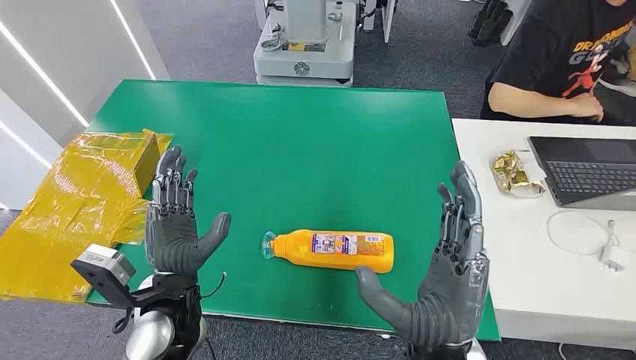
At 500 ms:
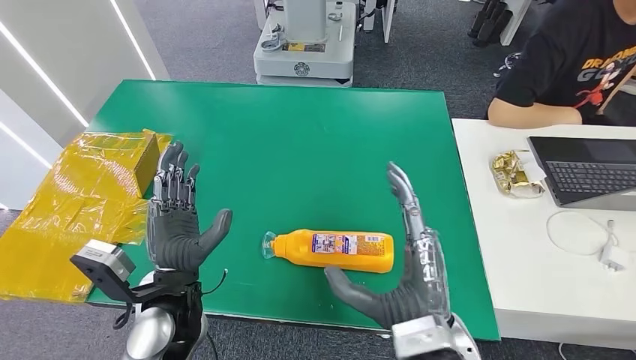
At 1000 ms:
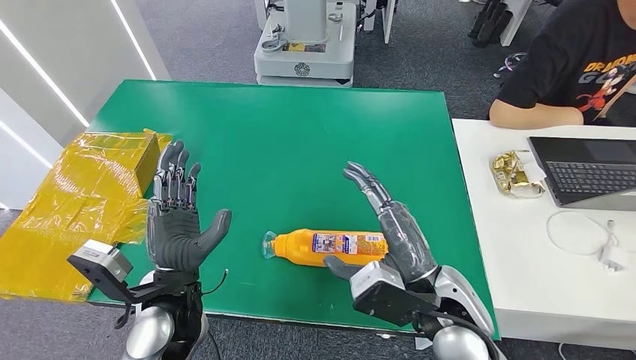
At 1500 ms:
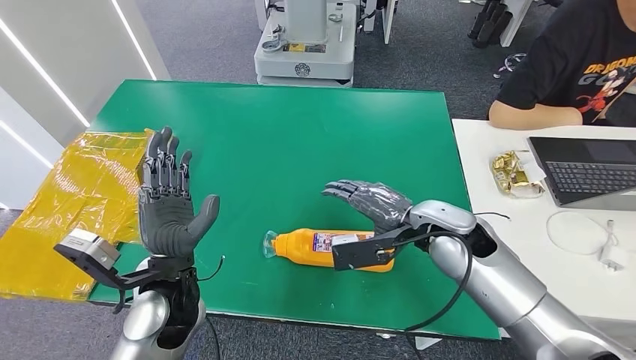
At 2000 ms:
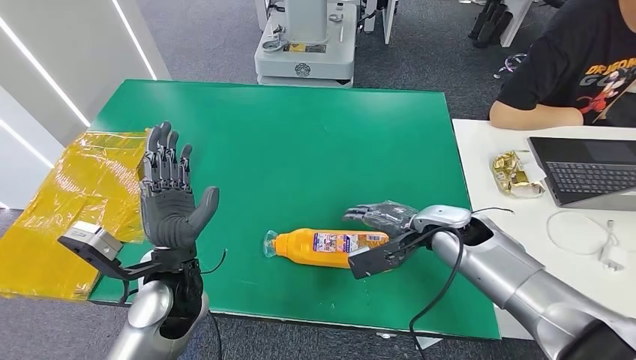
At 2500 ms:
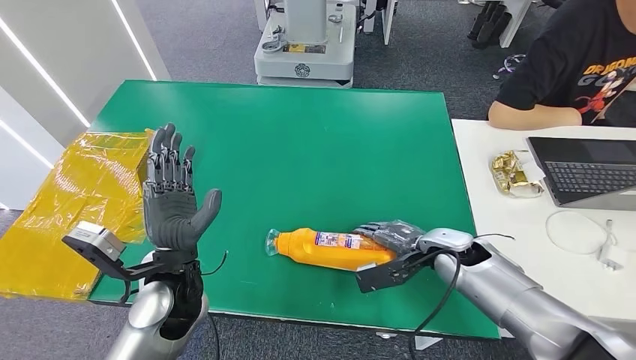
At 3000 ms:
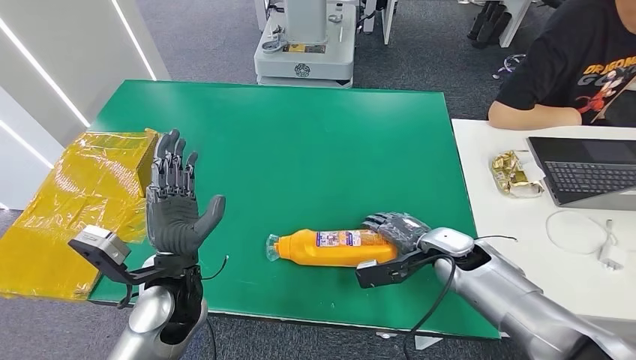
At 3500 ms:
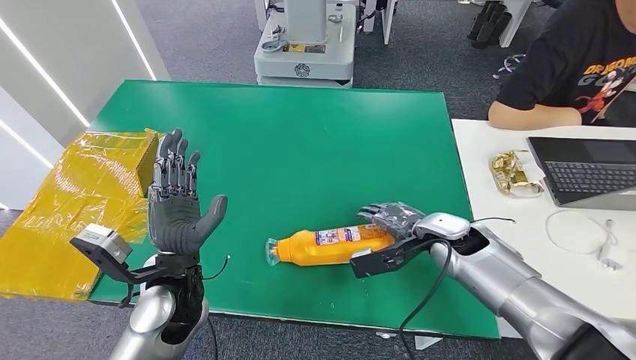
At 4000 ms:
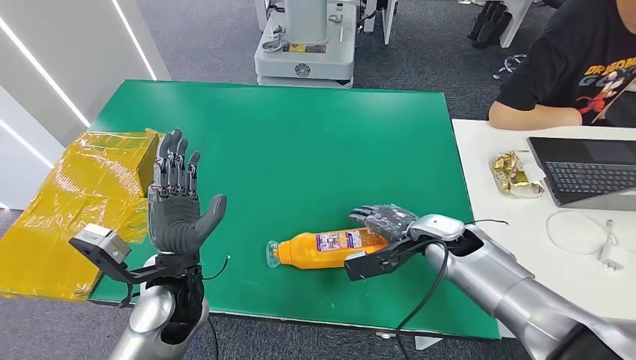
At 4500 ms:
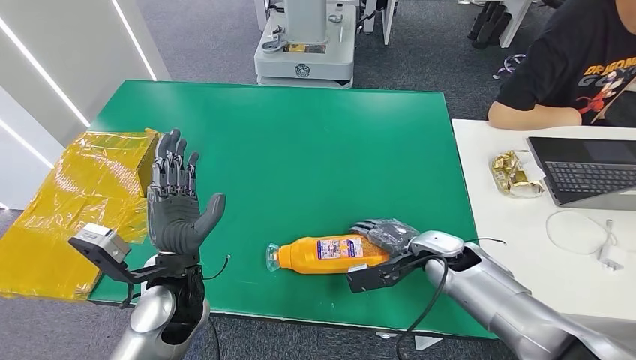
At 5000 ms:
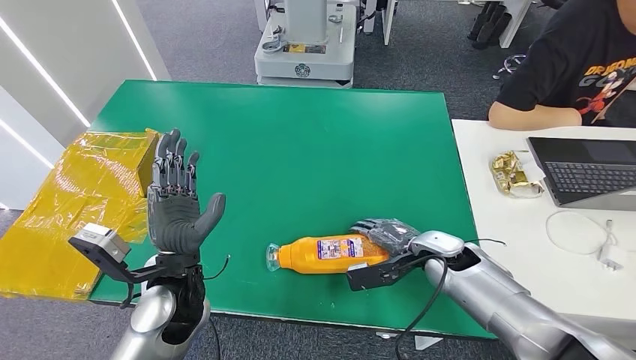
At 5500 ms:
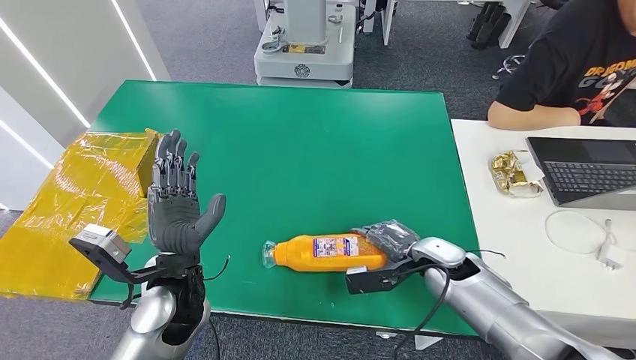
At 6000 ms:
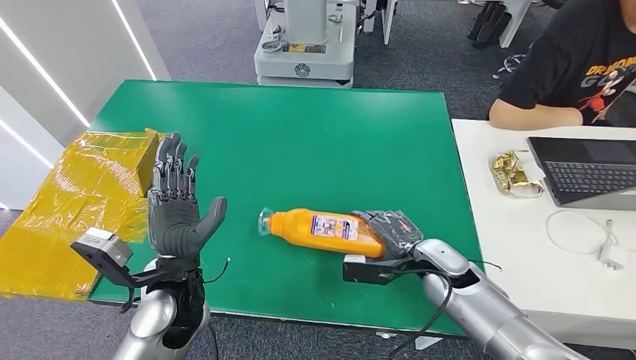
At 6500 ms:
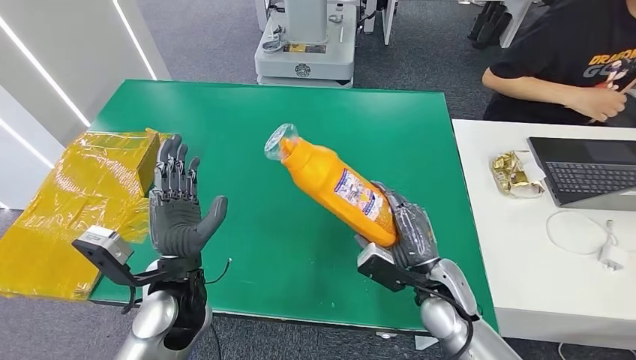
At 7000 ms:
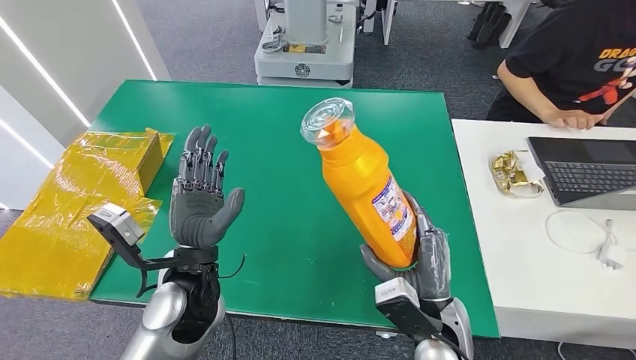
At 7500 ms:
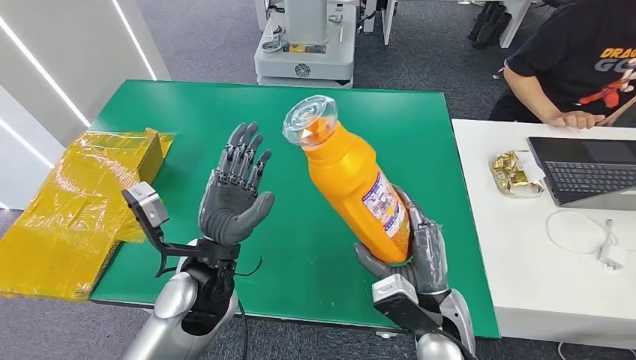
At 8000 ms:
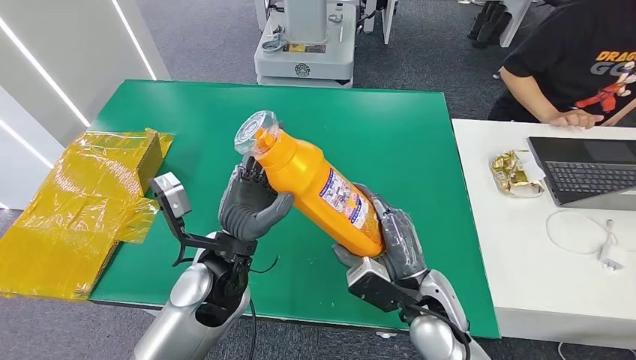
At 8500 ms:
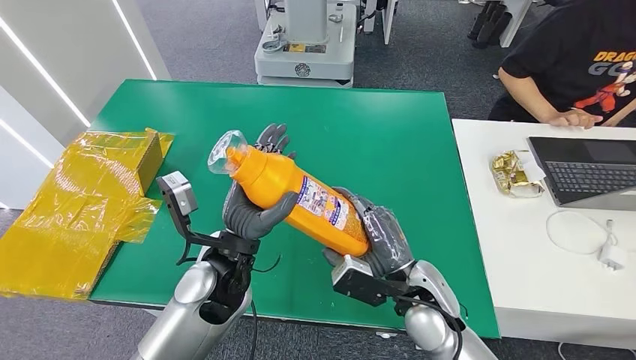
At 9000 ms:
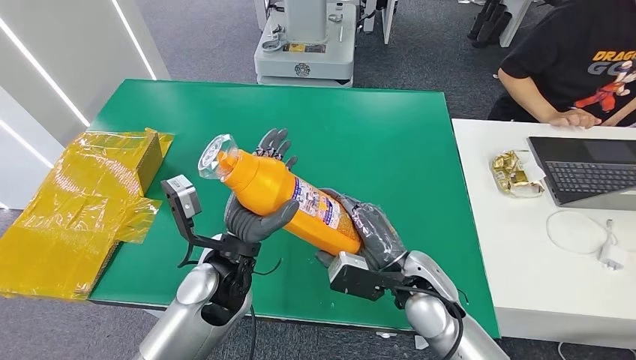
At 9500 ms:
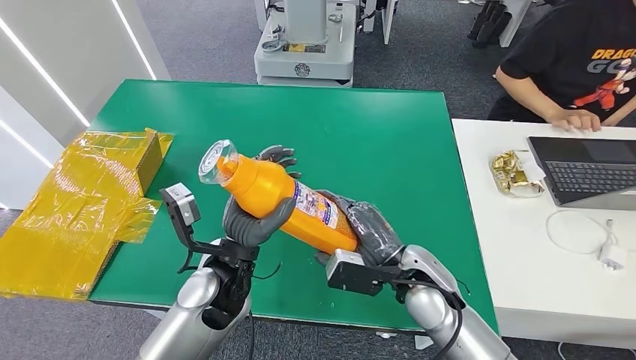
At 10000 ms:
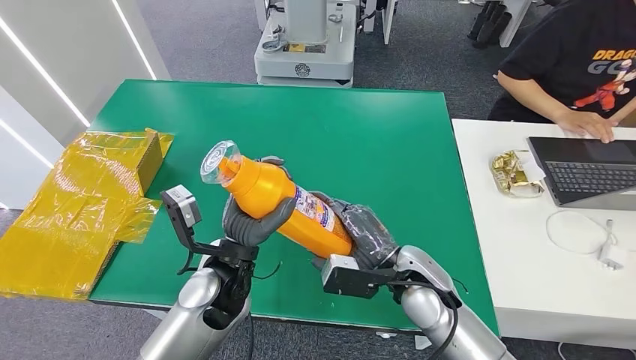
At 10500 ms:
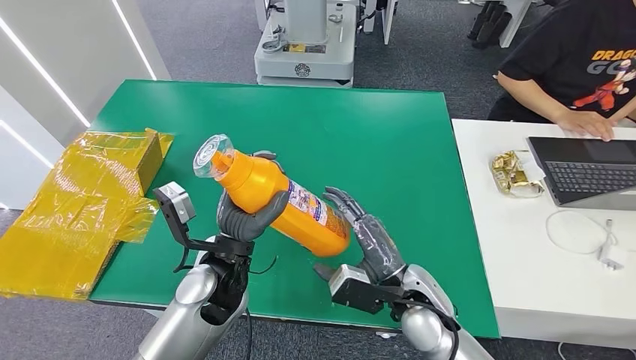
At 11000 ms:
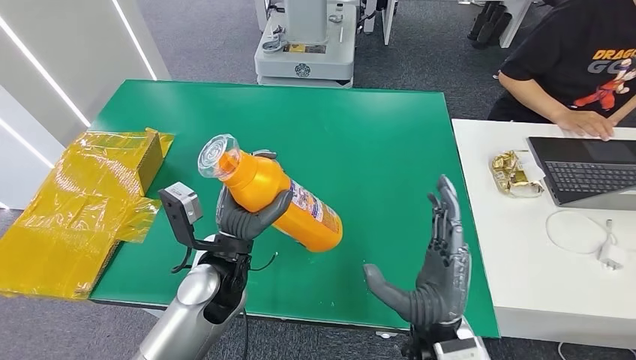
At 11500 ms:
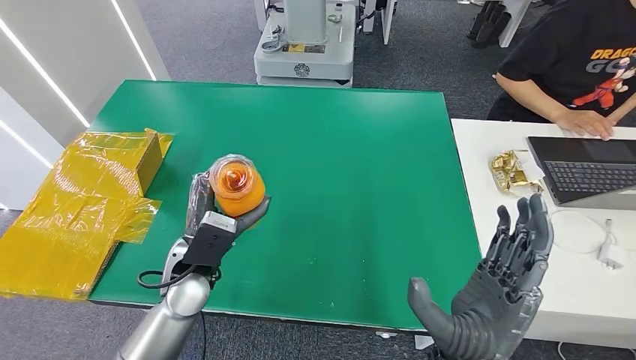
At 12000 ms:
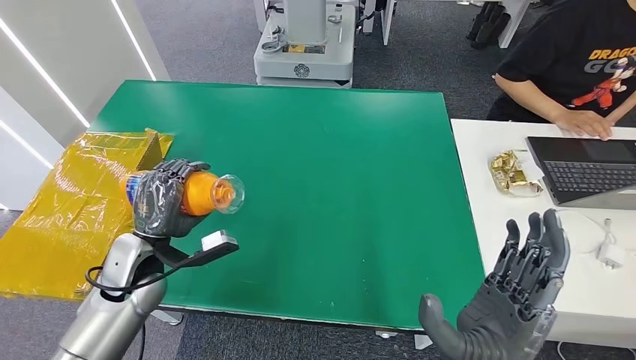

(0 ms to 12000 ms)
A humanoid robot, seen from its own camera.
Step, 0 ms - 7000 ms: Pick up the bottle from the table.
4000 ms - 6000 ms: The right hand travels downward by some 5 cm.

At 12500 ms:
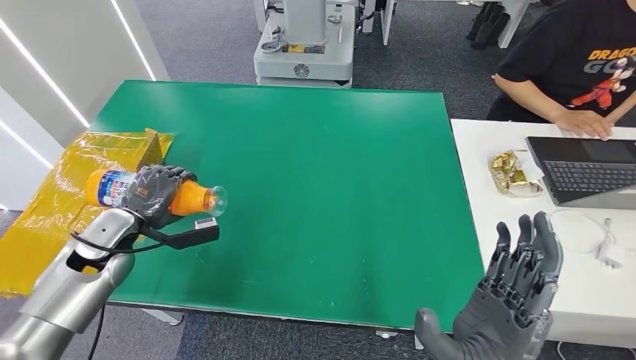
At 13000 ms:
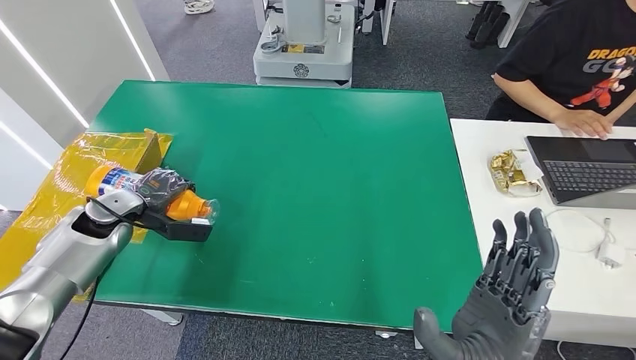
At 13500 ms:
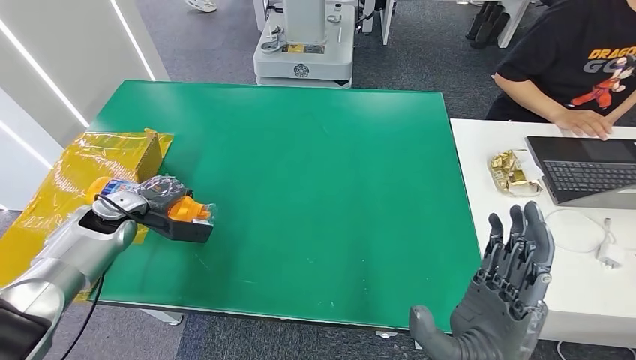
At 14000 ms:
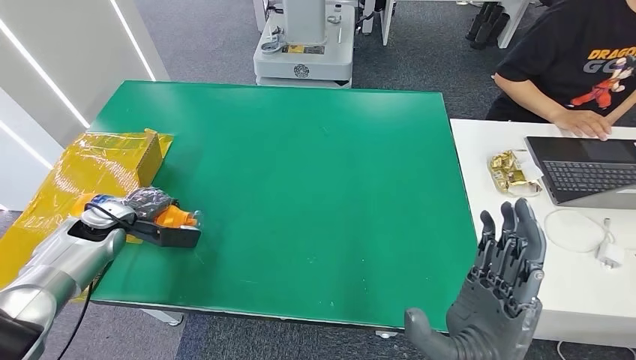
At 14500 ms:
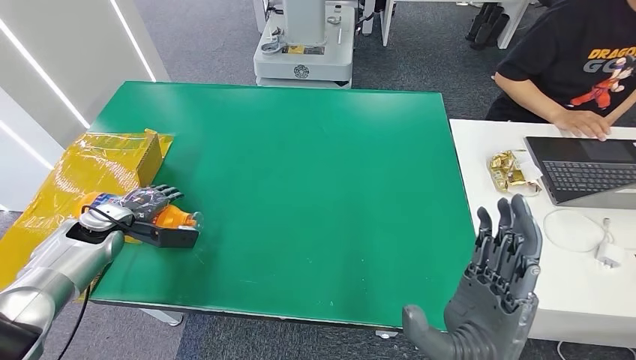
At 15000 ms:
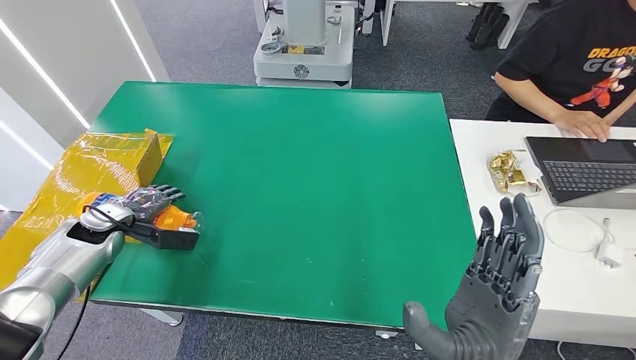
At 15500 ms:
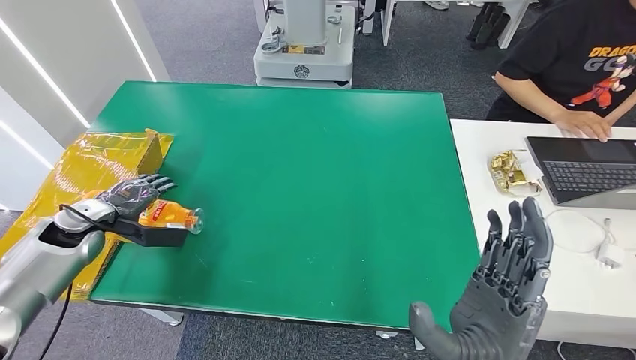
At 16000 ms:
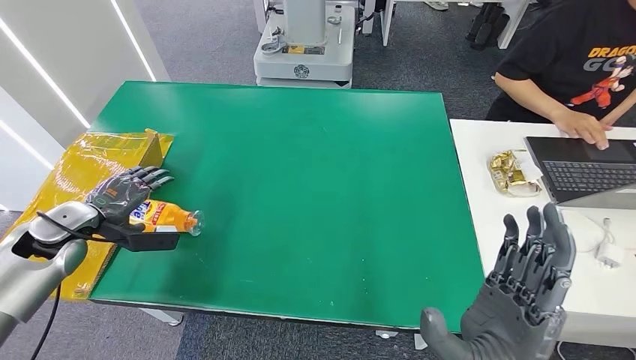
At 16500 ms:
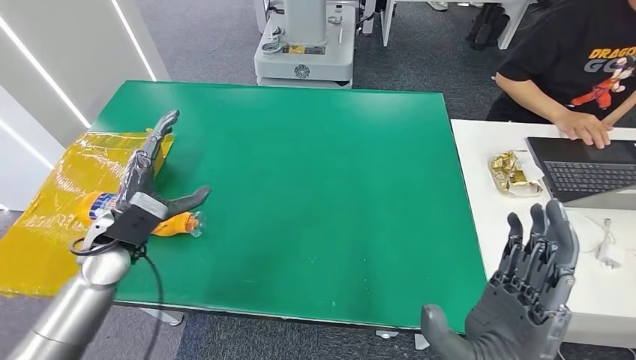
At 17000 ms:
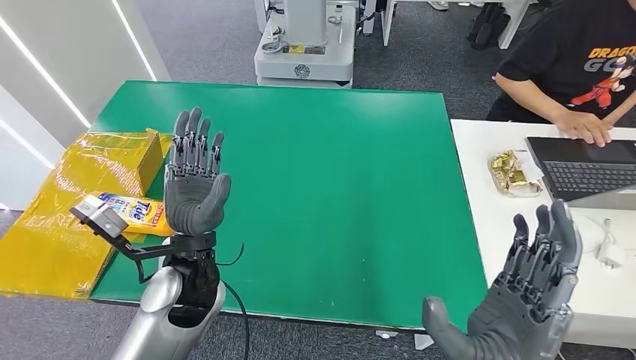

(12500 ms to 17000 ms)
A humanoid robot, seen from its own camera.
Step, 12500 ms - 16500 ms: Turn the bottle to the front side.
12500 ms - 14500 ms: The left hand shifts some 10 cm to the left.
14500 ms - 17000 ms: The left hand shifts approximately 30 cm to the right.

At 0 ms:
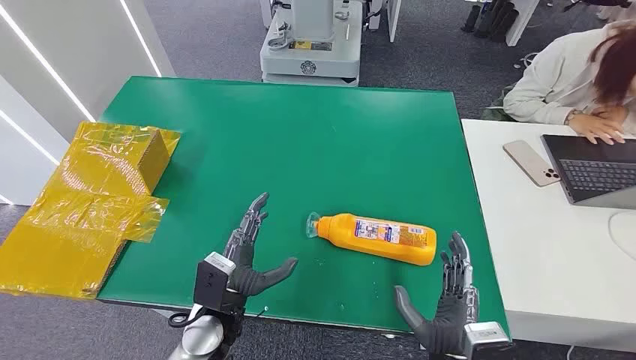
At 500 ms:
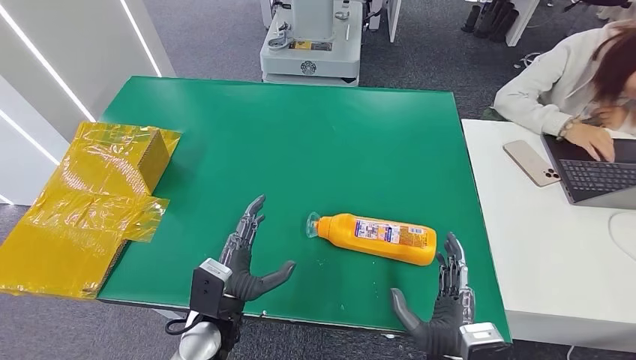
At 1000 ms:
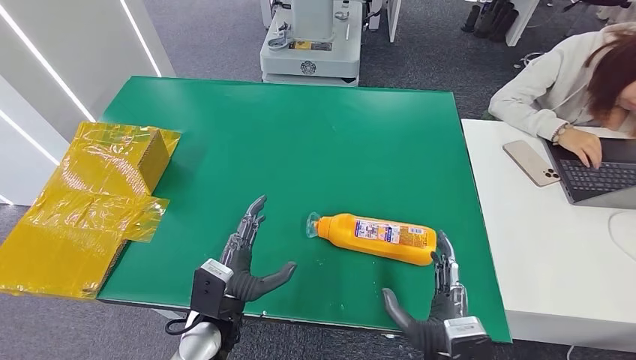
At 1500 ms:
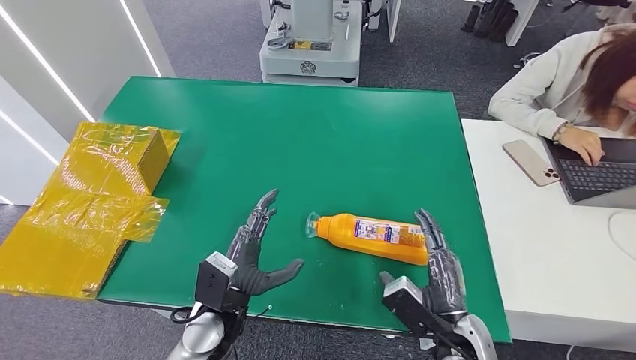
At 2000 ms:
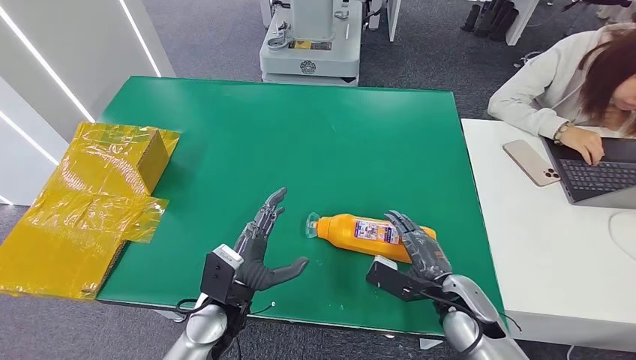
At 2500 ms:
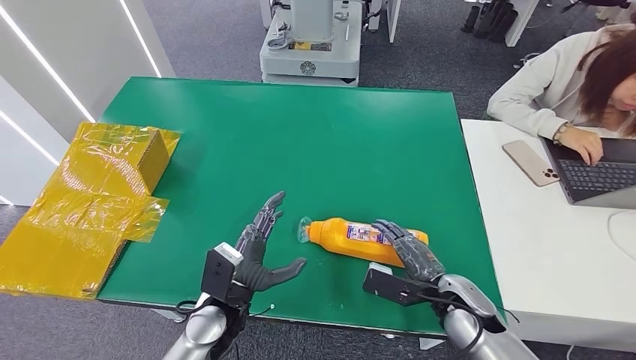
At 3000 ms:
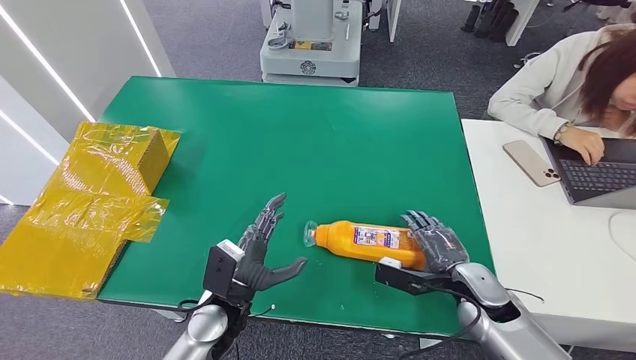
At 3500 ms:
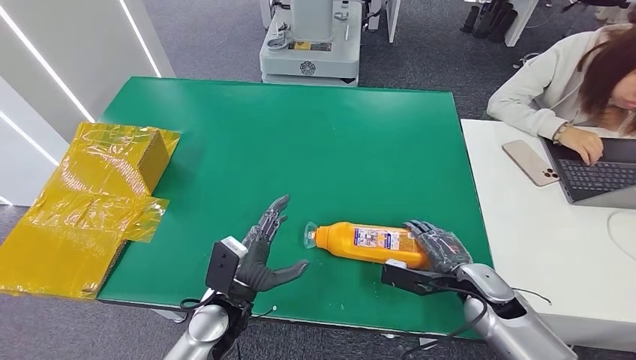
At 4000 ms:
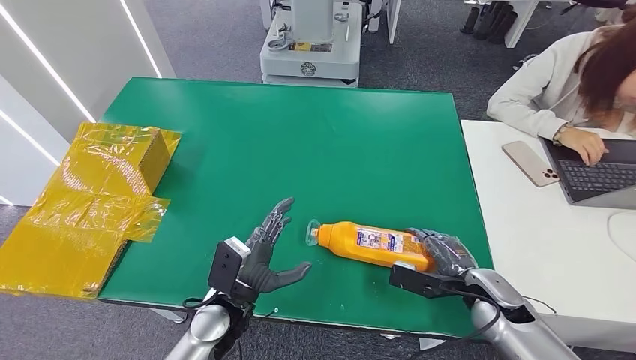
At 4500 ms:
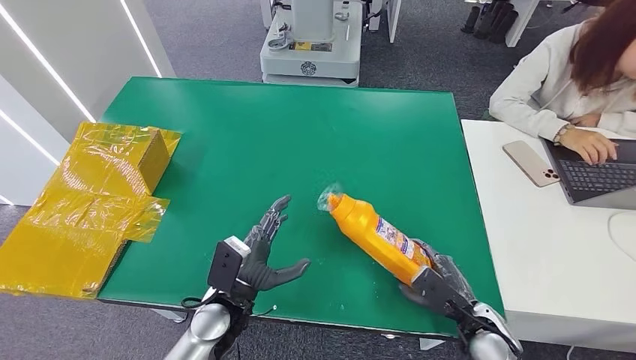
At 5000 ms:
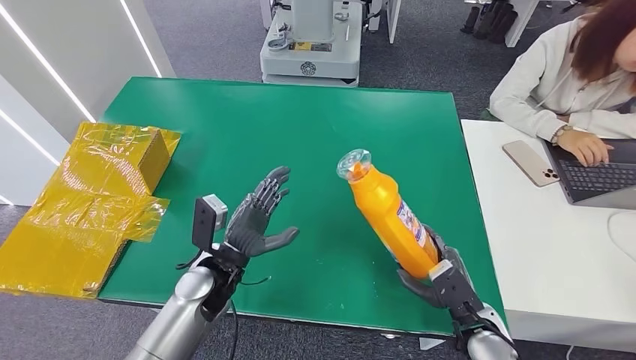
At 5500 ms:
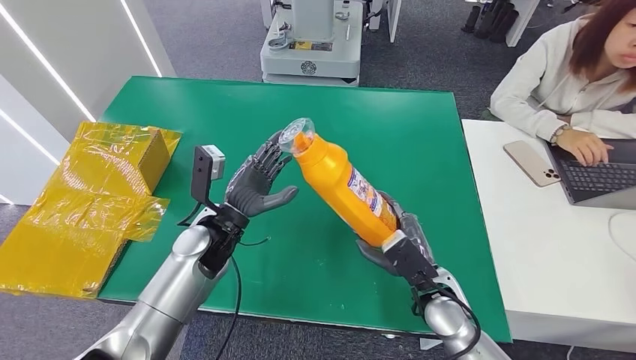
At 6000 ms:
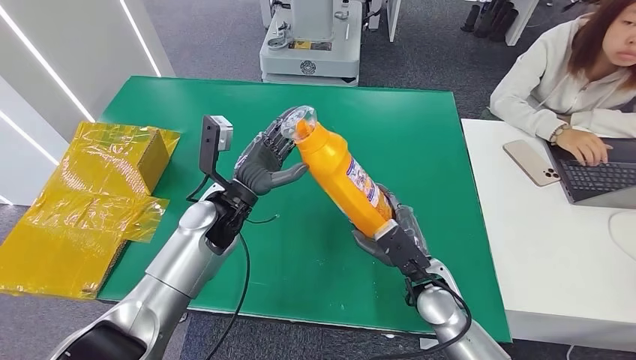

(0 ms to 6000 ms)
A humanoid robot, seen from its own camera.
Step, 0 ms - 5000 ms: Pick up the bottle from the table.
2000 ms - 4000 ms: The right hand shifts some 5 cm to the right.
